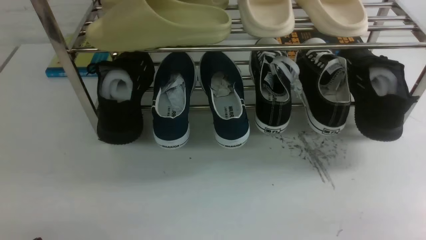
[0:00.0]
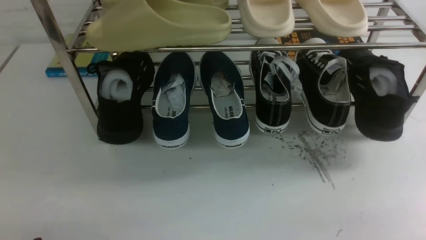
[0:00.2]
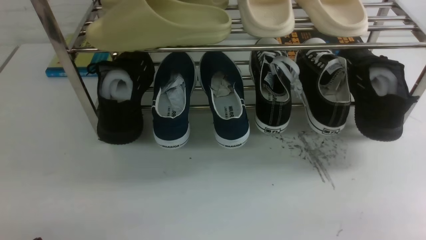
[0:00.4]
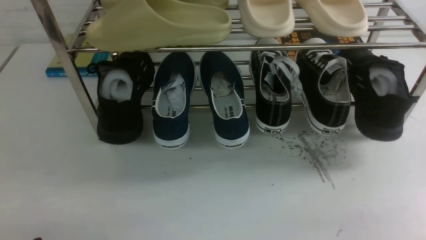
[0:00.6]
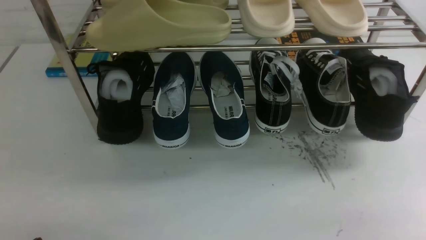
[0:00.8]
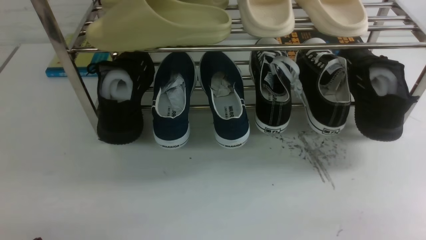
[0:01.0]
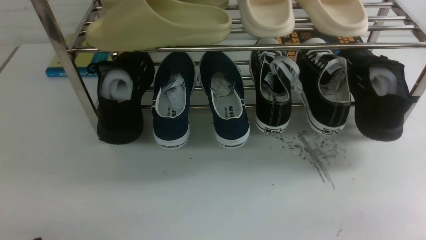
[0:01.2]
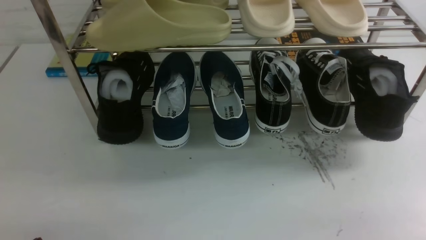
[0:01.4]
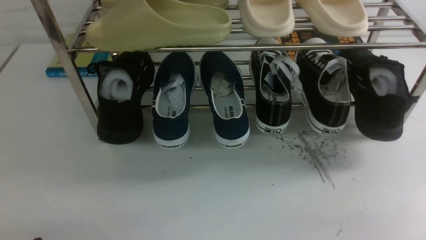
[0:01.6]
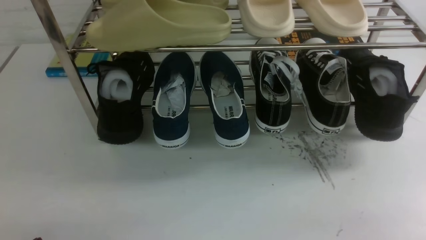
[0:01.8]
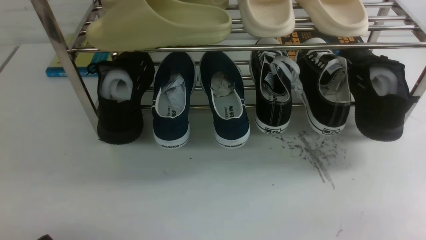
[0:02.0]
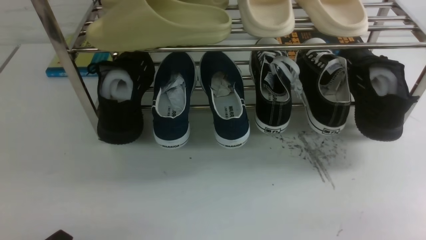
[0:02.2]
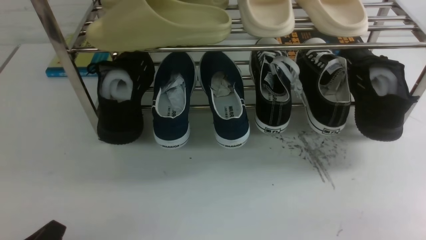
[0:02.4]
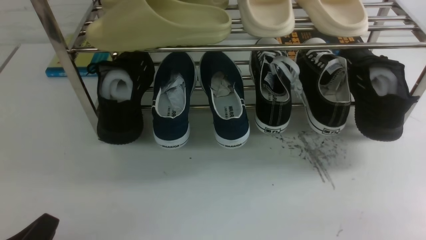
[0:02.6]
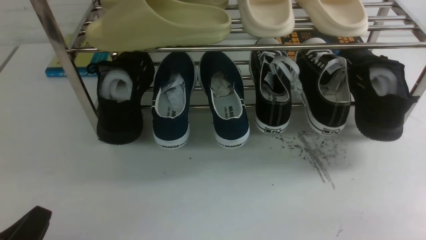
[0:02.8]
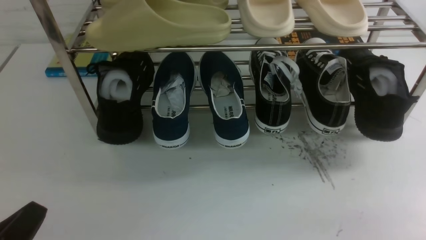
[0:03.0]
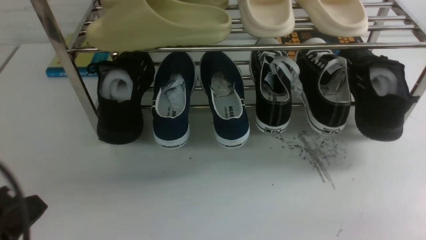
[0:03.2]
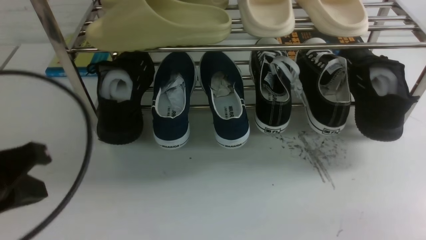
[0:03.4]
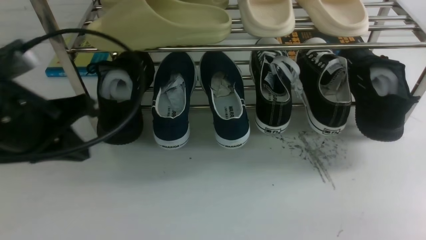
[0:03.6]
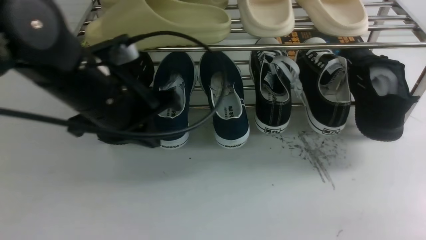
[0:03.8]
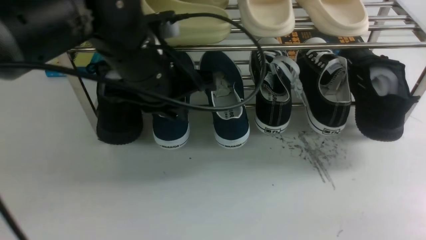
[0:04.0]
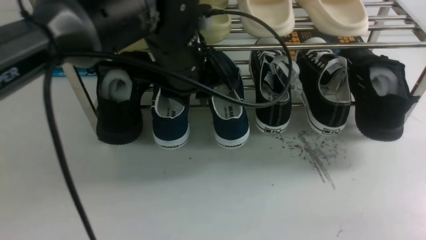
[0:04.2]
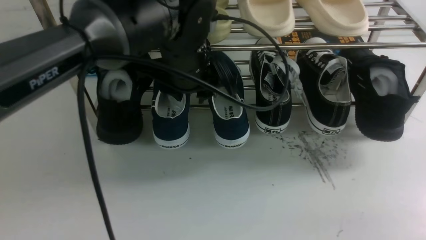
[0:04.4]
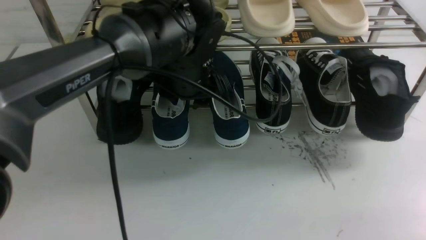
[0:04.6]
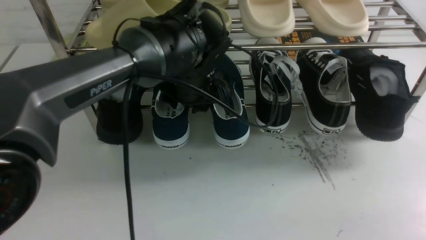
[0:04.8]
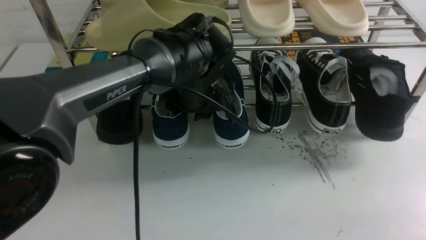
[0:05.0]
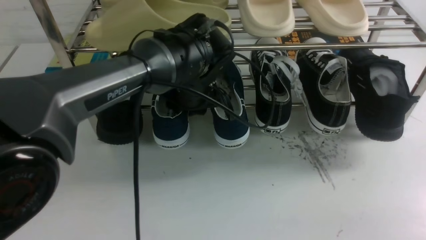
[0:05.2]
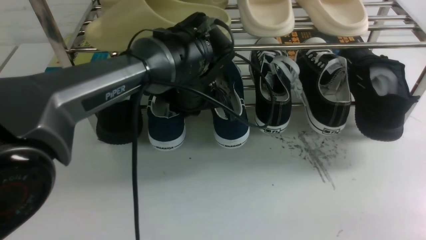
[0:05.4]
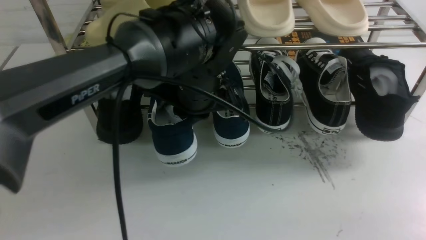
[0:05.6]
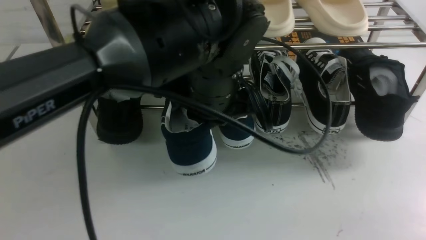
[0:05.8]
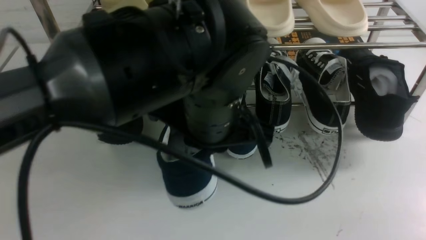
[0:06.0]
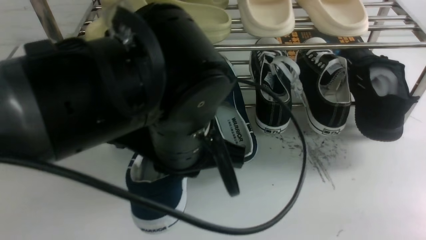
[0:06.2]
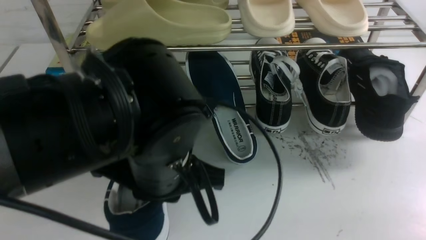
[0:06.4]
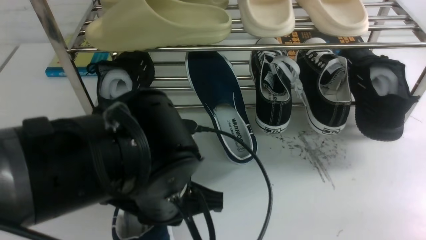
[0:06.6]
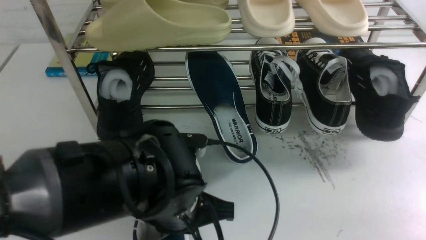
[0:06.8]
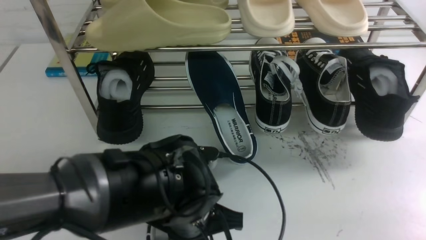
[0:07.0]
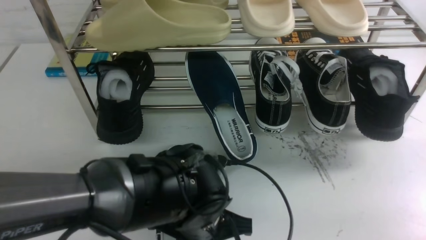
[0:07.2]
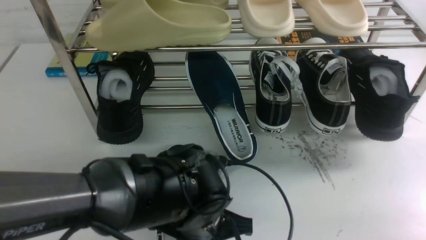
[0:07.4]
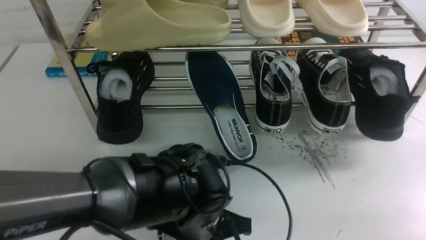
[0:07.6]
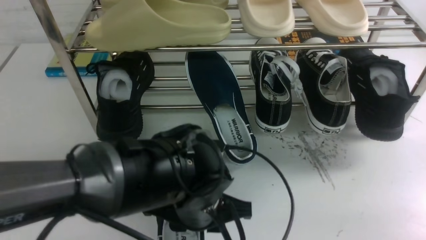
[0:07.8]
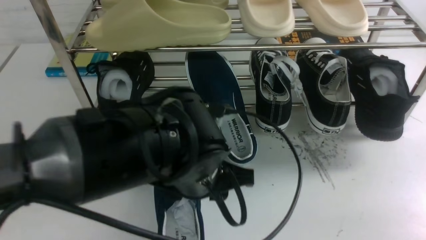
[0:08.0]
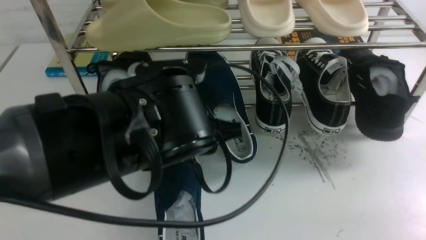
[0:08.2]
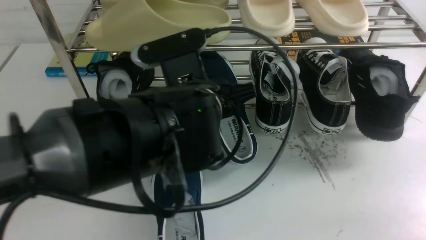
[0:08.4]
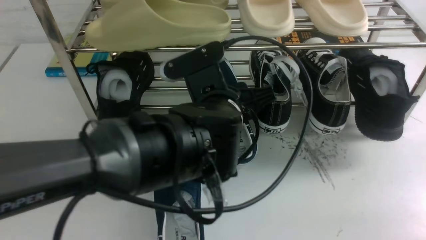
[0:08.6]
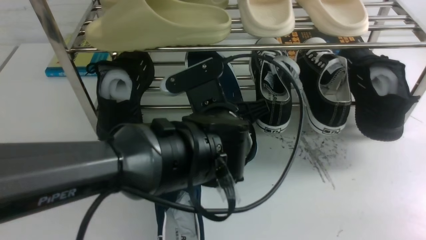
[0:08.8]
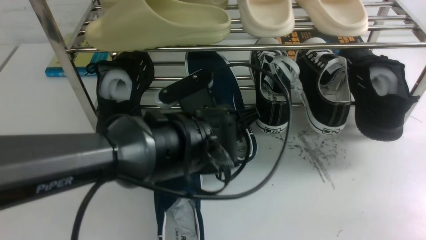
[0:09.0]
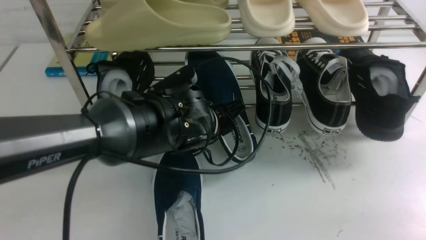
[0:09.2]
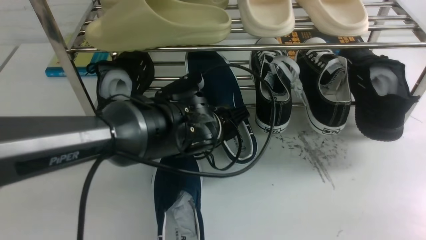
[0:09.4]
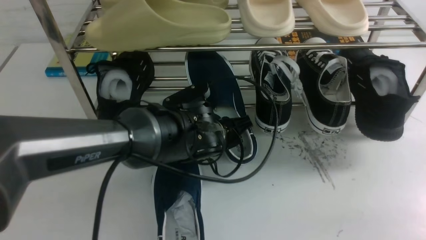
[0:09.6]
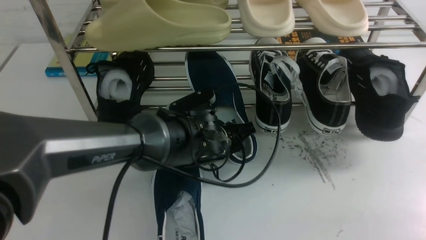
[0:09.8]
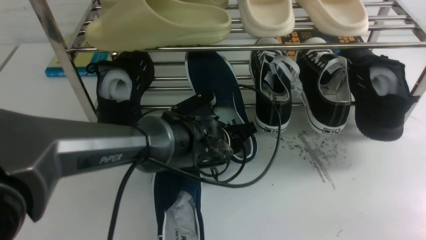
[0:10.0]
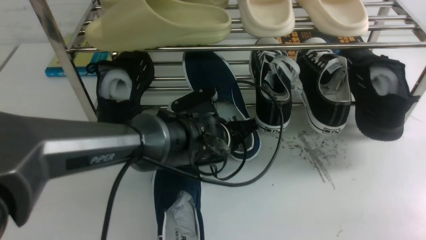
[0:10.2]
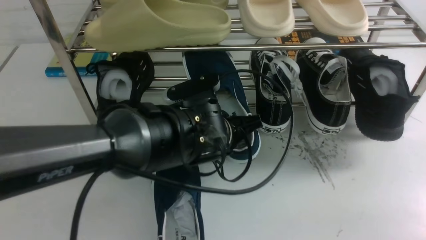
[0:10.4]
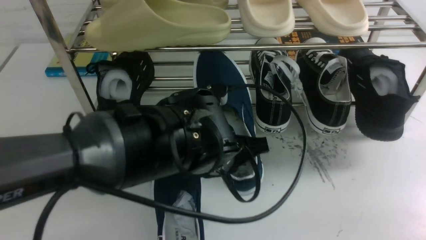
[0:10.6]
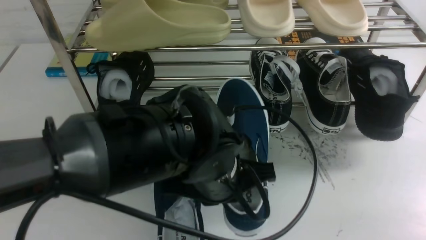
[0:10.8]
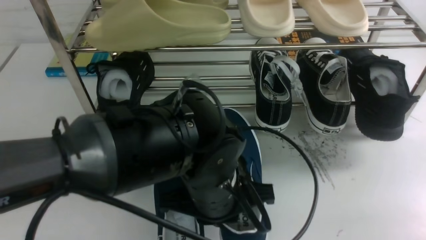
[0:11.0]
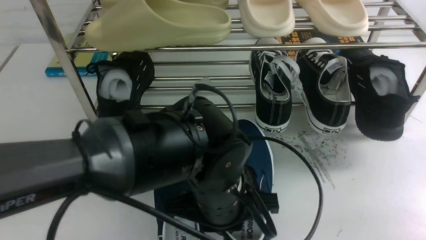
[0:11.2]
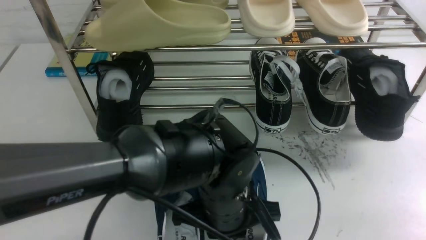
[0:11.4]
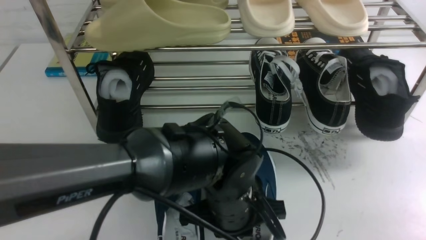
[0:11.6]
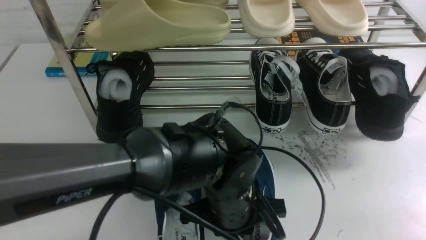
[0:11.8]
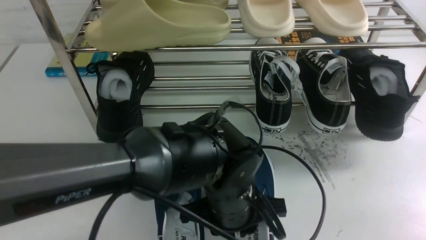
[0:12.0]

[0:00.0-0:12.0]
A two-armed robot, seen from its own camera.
Step, 0:00.0 to 0:05.6: use the left arm to clamp a shoe on the left side of the shoe rack.
Step, 0:05.8 to 0:08.0: Use your left arm to remove the clamped shoe from the shoe rack and put it down.
Step, 0:08.2 to 0:10.4: use the left arm to clamp a shoe on the left side of the shoe rack.
0:00.0 to 0:01.6: Both grippers stay about where they are.
0:01.6 to 0:03.0: The left gripper travels upward by about 5 cm, and closes its fingers.
0:03.0 to 0:04.4: The left gripper goes approximately 35 cm forward and to the right, and opens its fingers.
0:04.4 to 0:06.0: The left gripper is displaced backward by some 10 cm, and closes up.
0:06.0 to 0:07.6: The left gripper travels downward by about 15 cm, and opens its fingers.
0:07.6 to 0:09.0: The left gripper goes roughly 10 cm forward, and opens.
0:09.0 to 0:10.4: The left gripper closes its fingers.
0:10.4 to 0:12.0: The left gripper moves backward, approximately 5 cm, and opens up.

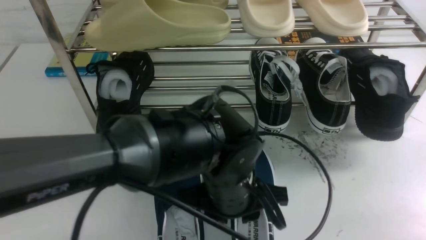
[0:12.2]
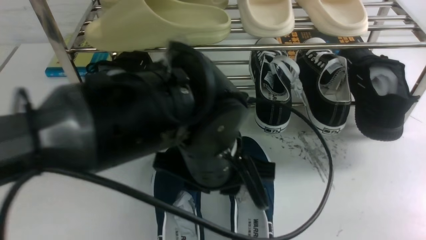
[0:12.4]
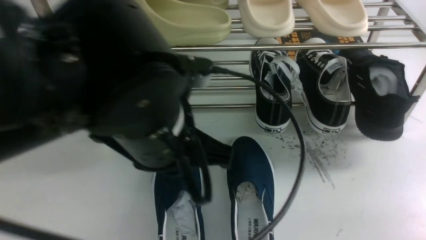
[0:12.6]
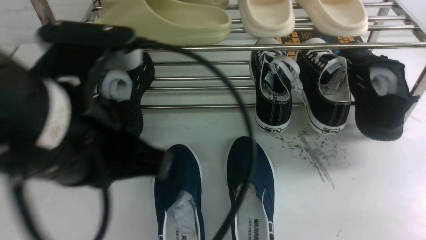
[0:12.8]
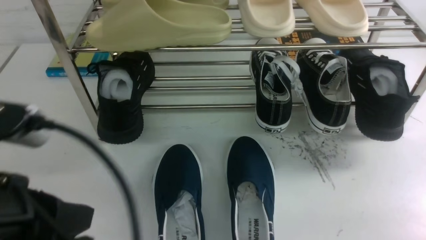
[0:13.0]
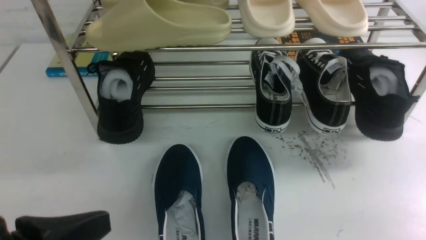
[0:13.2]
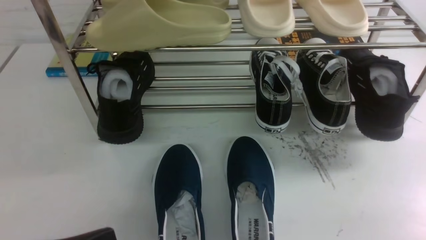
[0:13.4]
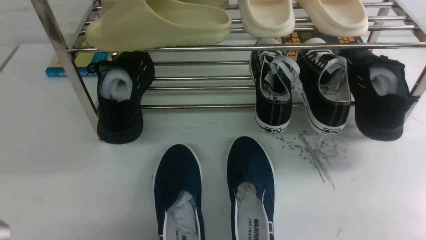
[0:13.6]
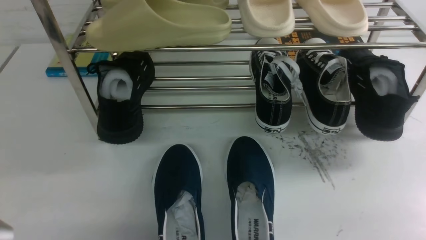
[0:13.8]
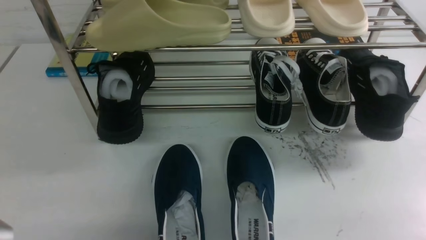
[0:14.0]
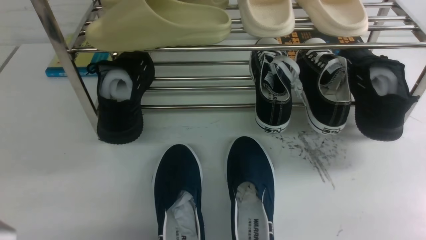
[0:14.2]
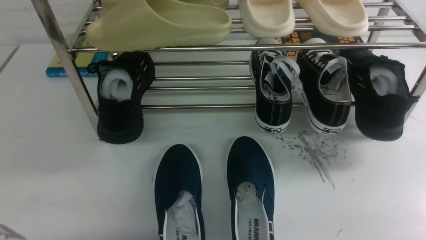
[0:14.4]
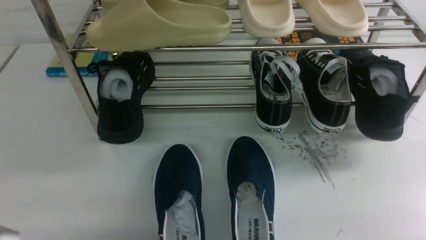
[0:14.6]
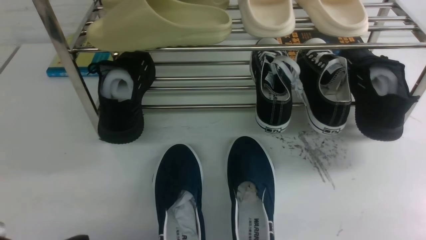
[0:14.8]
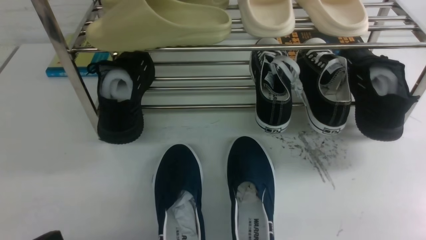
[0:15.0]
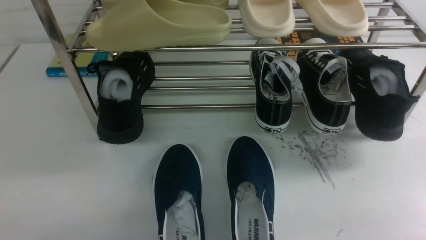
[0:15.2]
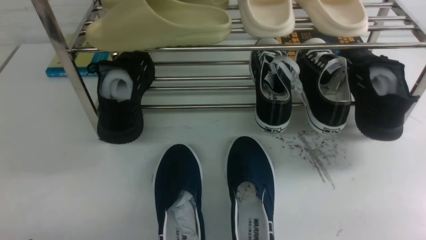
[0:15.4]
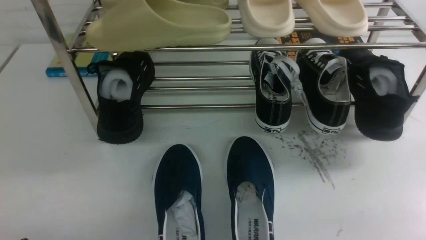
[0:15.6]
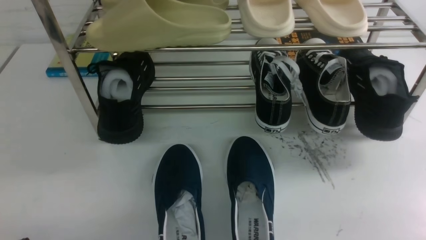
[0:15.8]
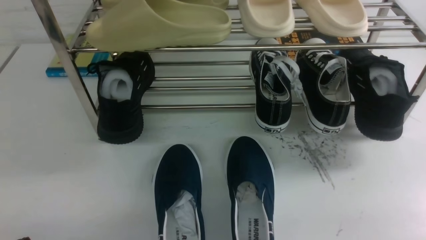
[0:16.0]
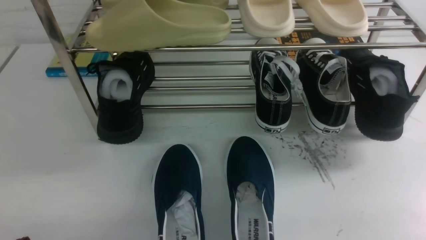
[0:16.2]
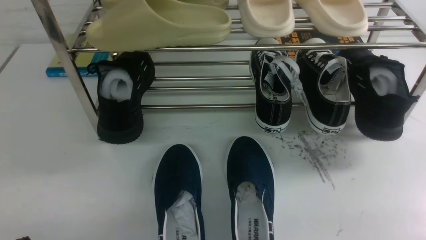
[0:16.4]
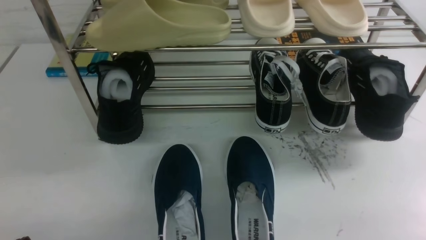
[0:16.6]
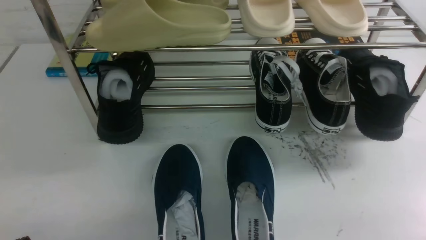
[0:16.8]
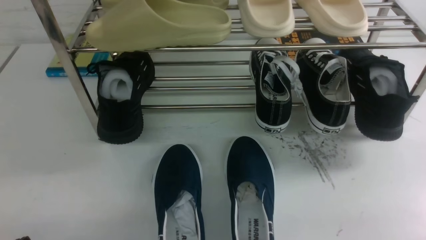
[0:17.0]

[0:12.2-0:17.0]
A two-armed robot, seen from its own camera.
0:12.2 to 0:13.8: The left gripper goes approximately 25 cm to the left and backward, and closes up.
0:15.4 to 0:17.0: The two grippers keep their place.
